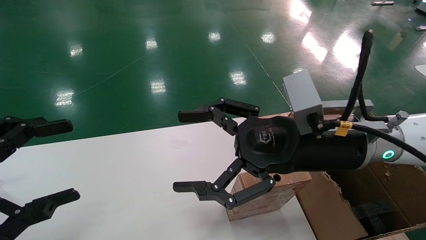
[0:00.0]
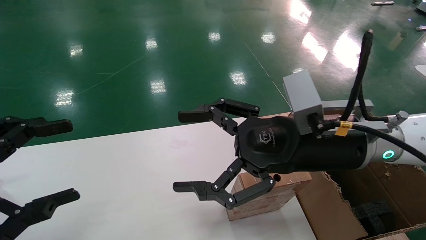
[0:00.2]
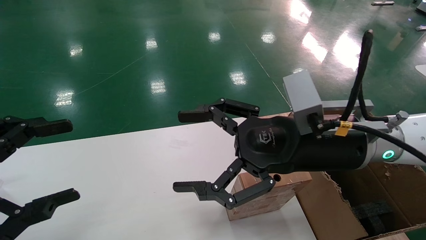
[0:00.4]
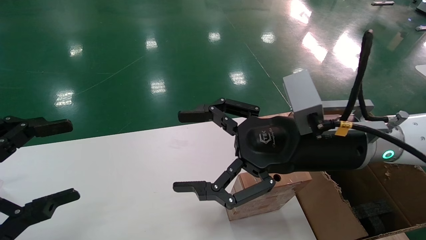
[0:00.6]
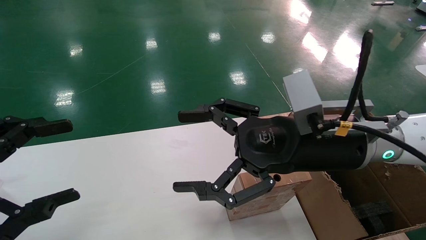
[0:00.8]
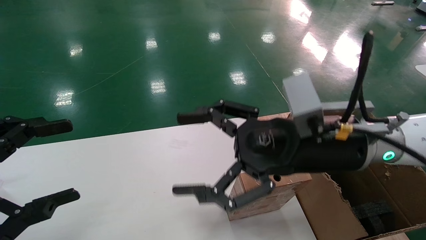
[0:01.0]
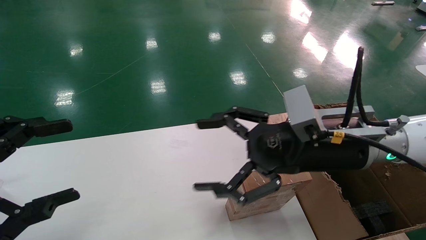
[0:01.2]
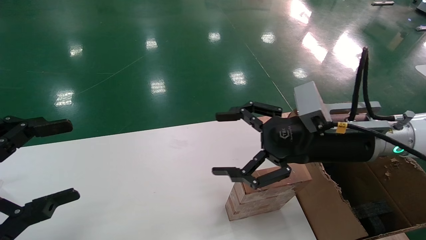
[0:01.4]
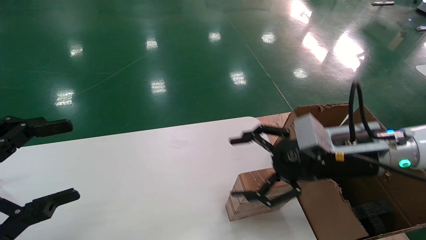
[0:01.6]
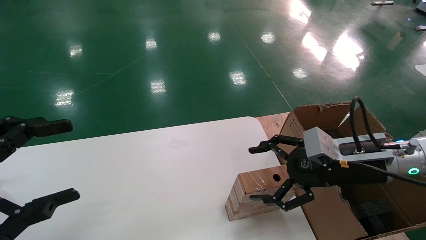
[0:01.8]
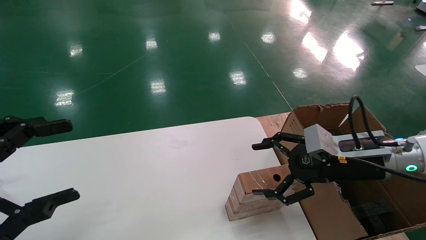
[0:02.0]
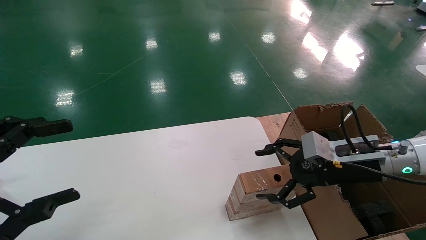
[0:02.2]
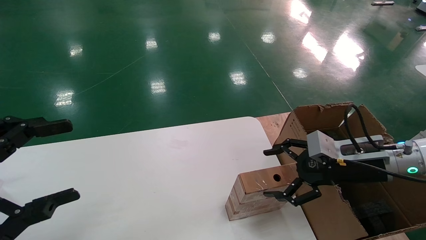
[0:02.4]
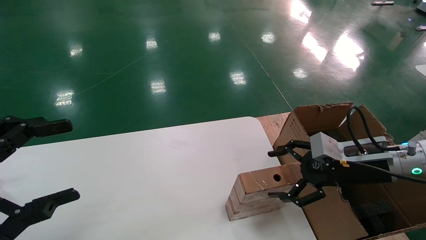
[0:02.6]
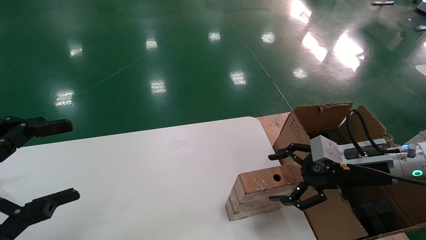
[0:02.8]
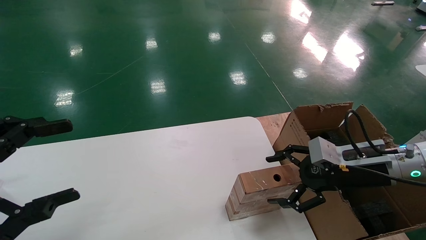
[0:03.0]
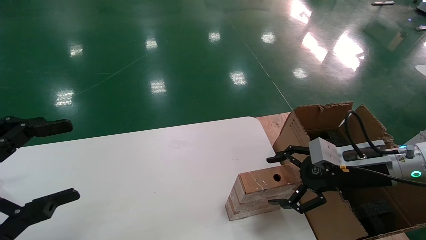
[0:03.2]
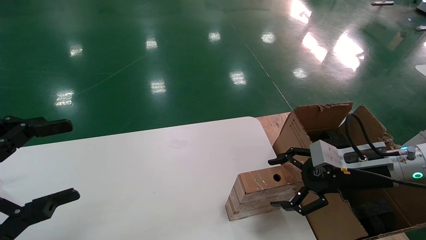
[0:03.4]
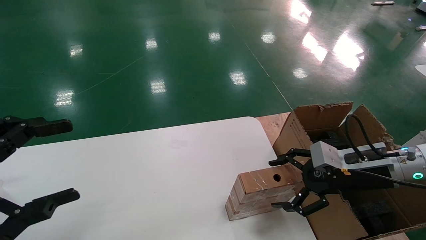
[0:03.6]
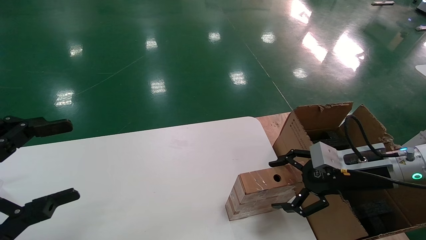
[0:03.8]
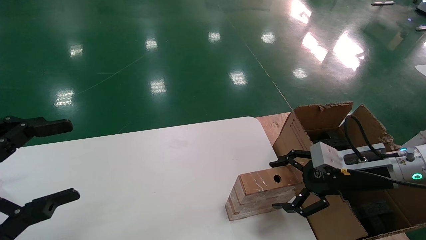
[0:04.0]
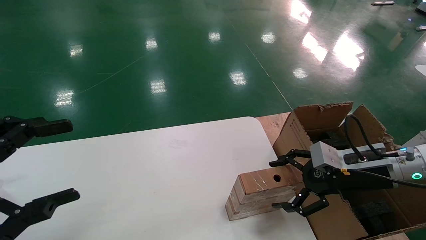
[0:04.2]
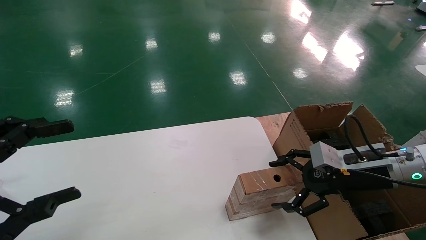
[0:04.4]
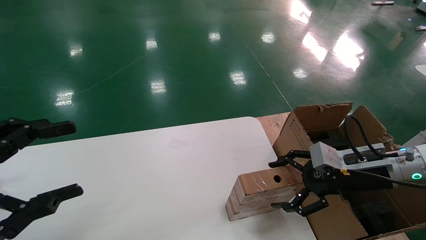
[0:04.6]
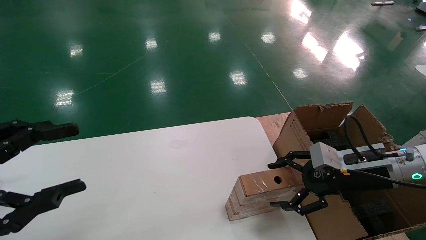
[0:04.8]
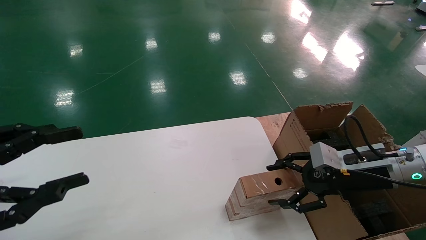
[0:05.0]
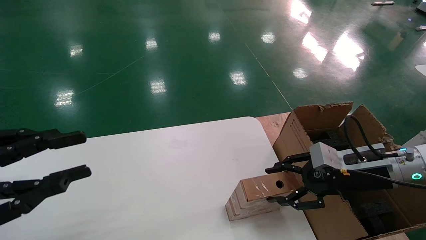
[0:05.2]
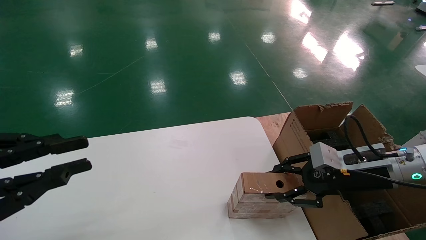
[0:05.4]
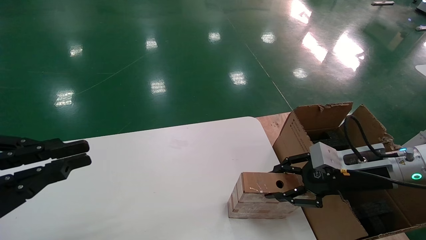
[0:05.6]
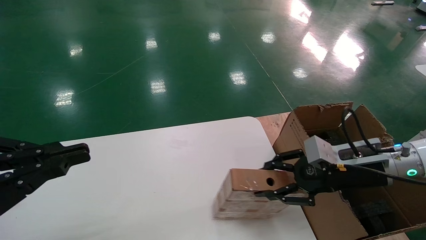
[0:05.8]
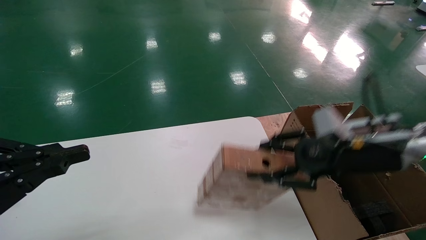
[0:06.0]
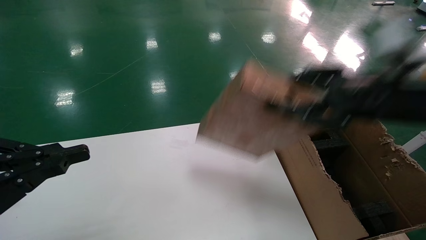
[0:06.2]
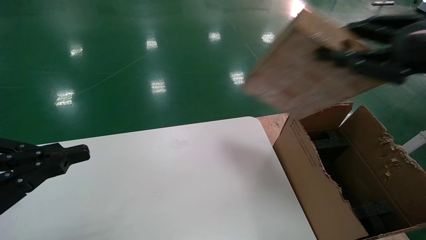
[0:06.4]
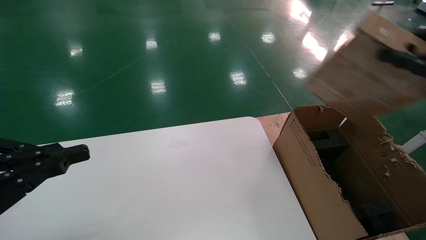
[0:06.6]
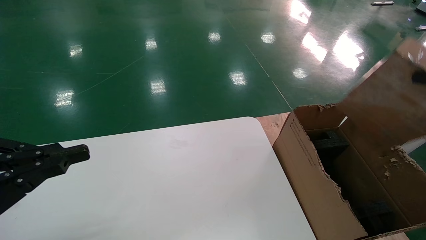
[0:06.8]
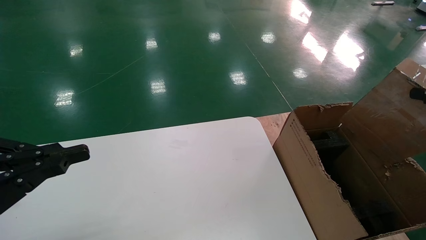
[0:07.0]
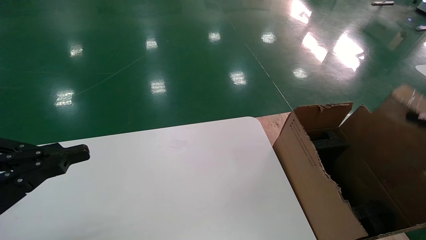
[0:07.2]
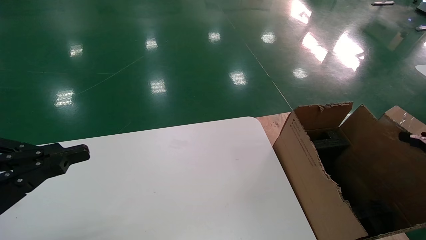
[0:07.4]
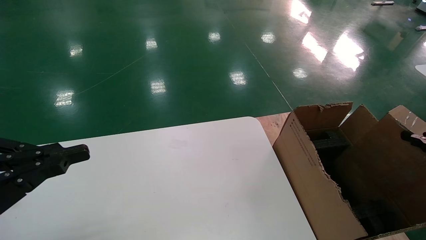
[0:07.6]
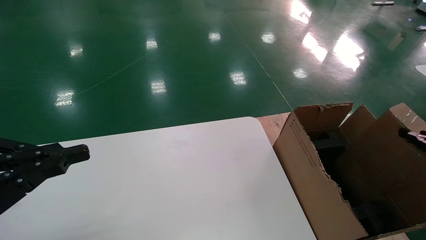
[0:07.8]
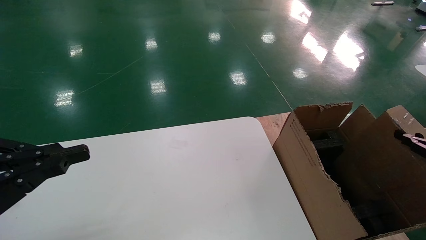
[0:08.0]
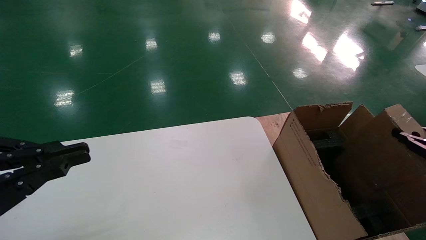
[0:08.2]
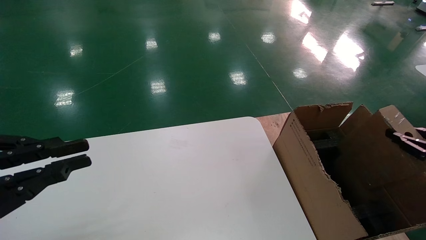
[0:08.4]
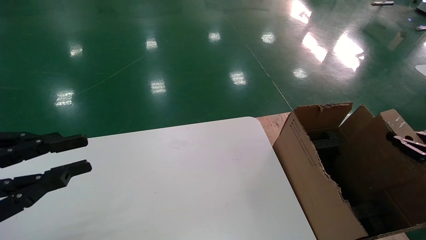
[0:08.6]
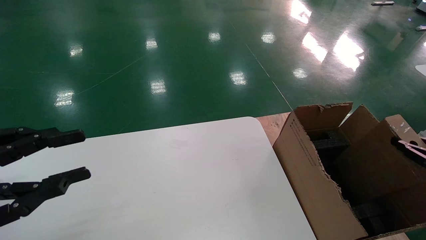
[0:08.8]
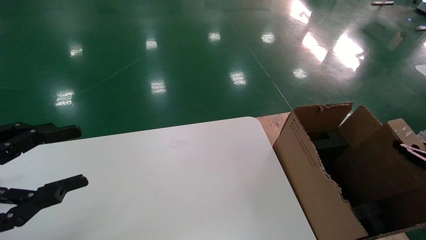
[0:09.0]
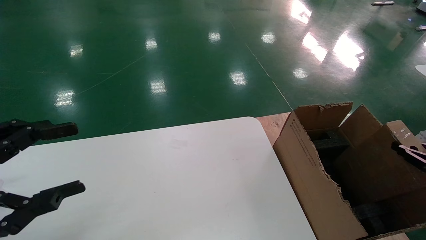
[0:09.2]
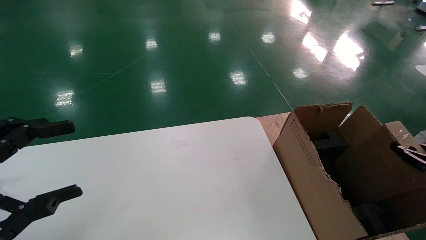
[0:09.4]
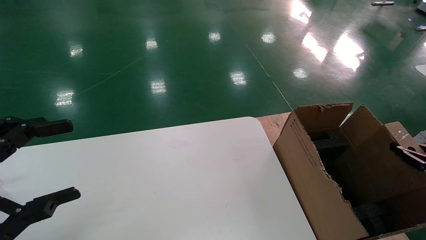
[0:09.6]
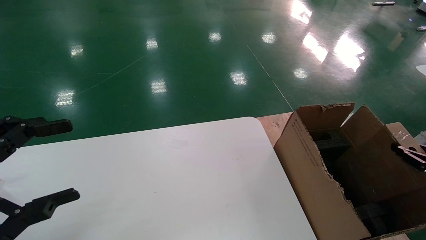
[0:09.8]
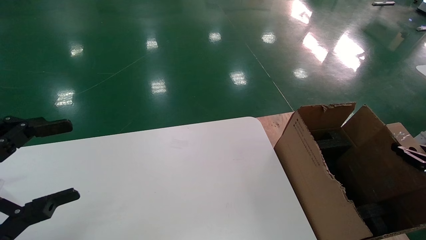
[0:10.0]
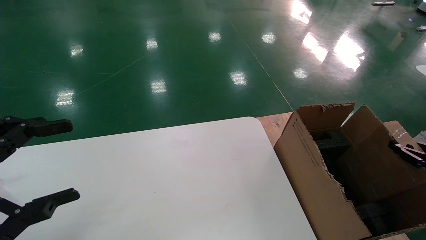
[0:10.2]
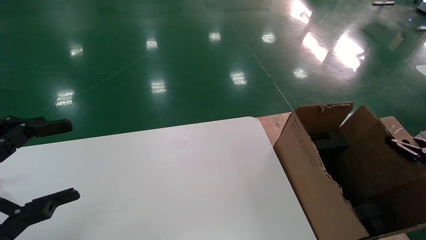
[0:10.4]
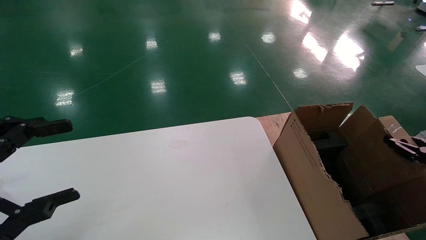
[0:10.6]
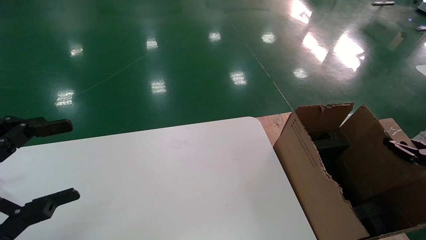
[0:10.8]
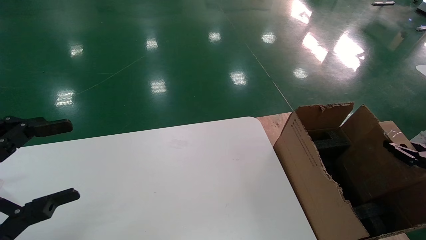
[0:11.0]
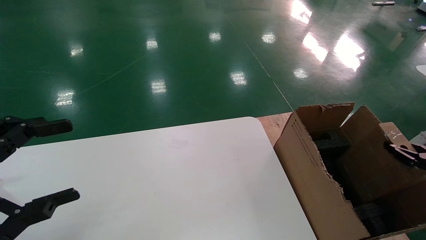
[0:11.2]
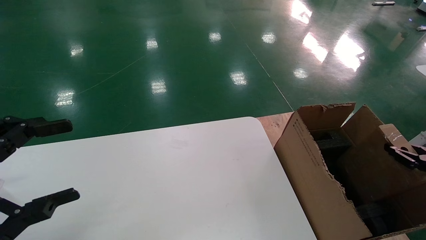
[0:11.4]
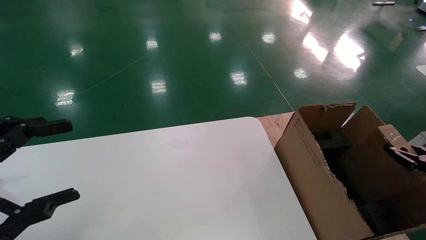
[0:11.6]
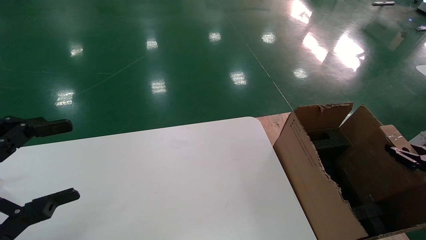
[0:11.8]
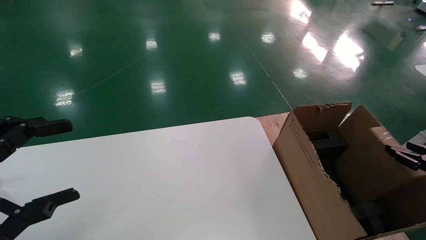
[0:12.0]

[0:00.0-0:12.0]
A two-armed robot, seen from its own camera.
Task of the whole recording: put the box on the table into the big box.
Step, 0:01.4 to 0:05.6: Pick up the mouse and the power cord paper box.
0:00.0 to 0:01.6: The right gripper travels to the right by approximately 10 cm.
0:01.6 to 0:03.0: The right gripper shifts roughly 10 cm to the right and downward.
0:03.0 to 0:04.4: Neither gripper changes place.
0:04.4 to 0:06.0: The right gripper goes some 10 cm upward, and closes. Meanwhile the left gripper closes up.
0:06.0 to 0:07.6: The right gripper goes roughly 25 cm to the right and backward.
0:07.6 to 0:09.0: The right gripper goes about 10 cm downward, while the left gripper opens up.
0:09.0 to 0:10.4: The left gripper opens up.
0:10.4 to 0:12.0: There are only small adjustments of the grippers.

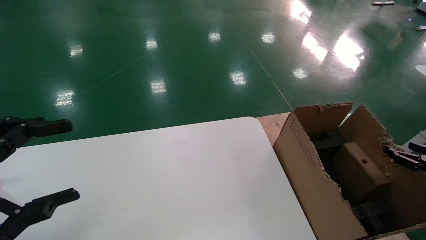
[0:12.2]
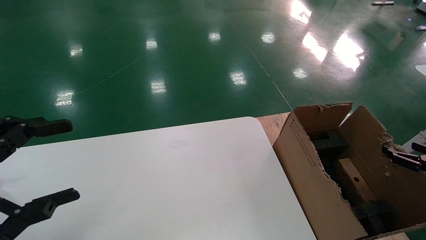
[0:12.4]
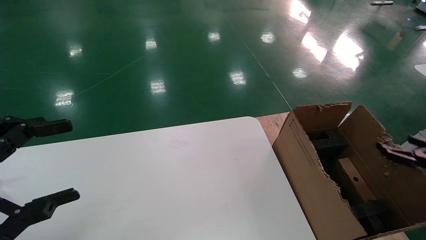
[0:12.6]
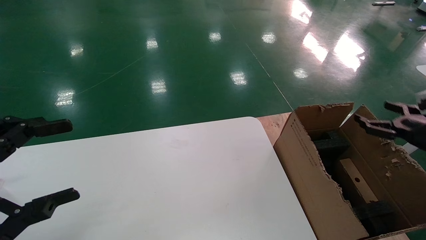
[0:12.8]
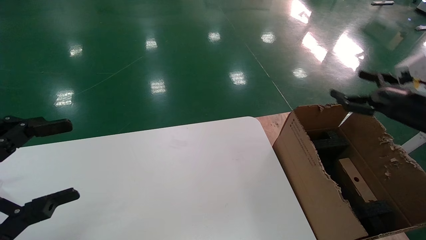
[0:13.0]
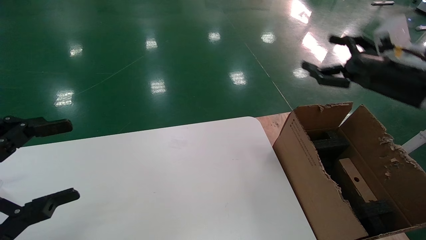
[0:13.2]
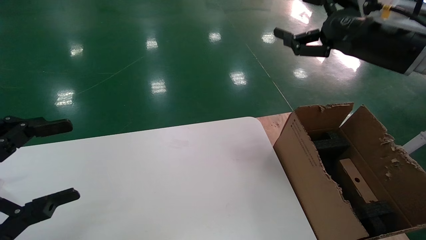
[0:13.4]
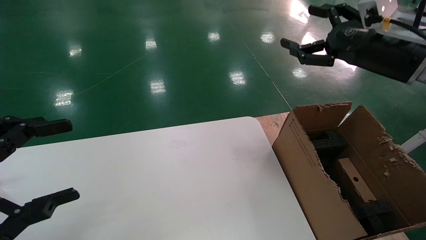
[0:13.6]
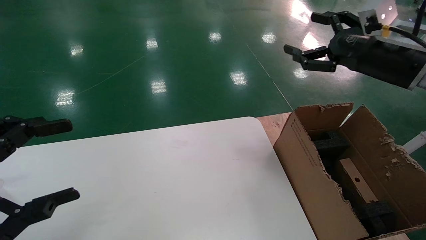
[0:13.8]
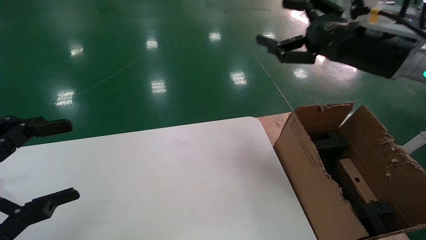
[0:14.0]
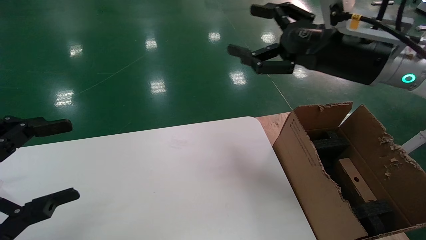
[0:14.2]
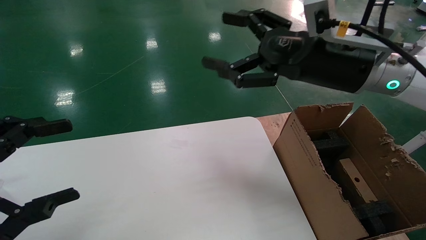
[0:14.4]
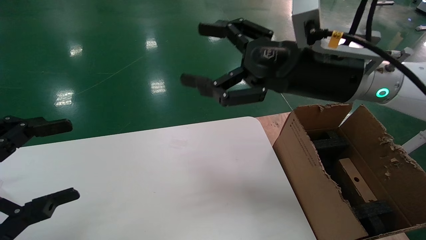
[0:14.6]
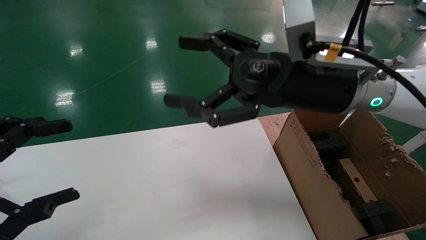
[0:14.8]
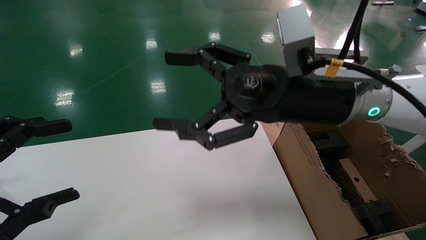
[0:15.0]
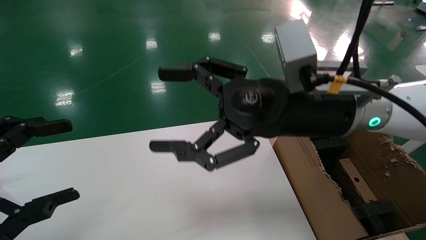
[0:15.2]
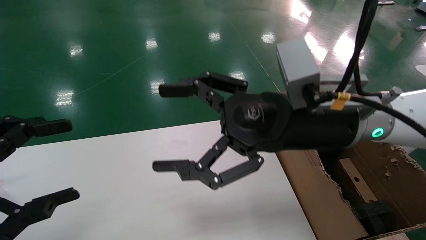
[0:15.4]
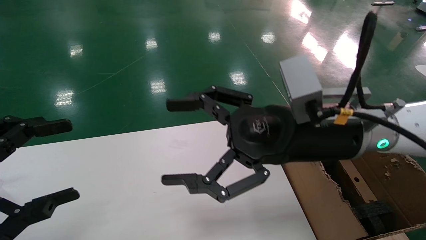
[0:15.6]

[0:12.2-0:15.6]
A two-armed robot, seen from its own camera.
Task of the whole recording: put the box on the table into the big box.
0:12.2 to 0:13.8: The right gripper travels upward, to the left and forward by some 35 cm, and opens its fingers.
0:13.8 to 0:15.6: The right gripper heads to the left, covering some 20 cm.
